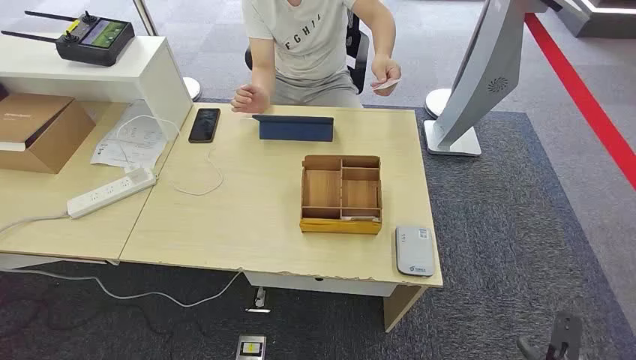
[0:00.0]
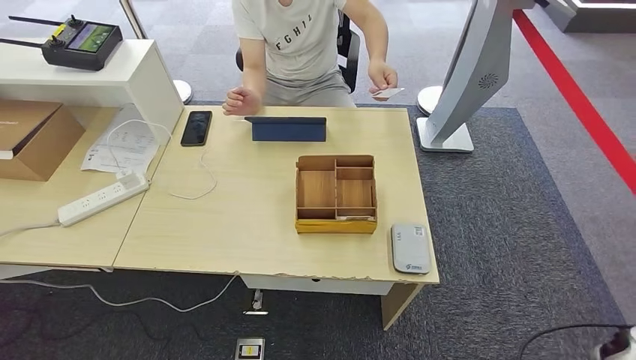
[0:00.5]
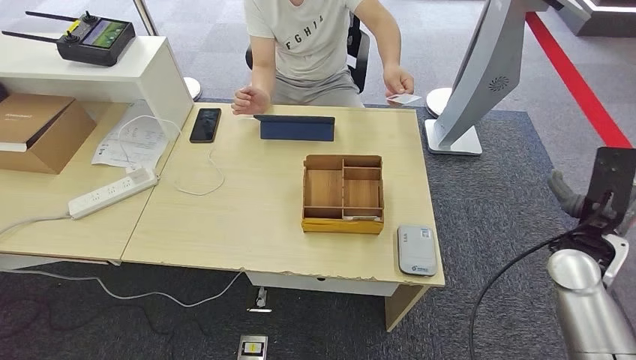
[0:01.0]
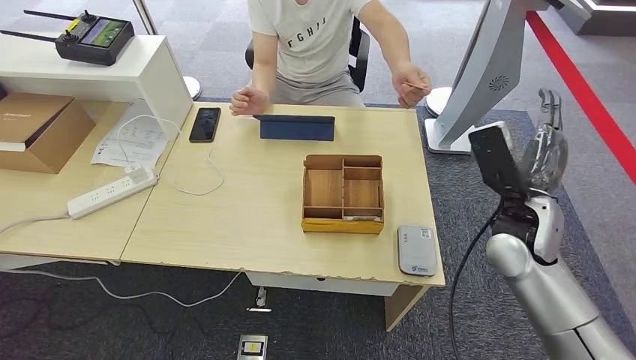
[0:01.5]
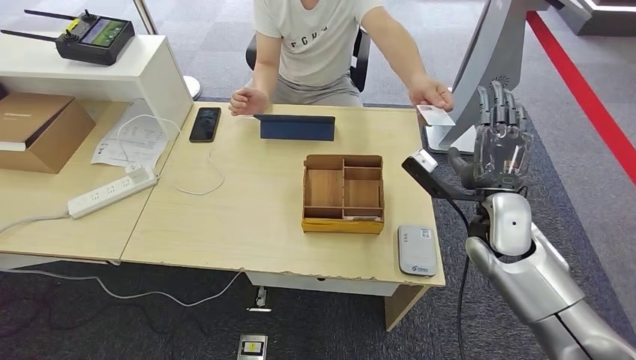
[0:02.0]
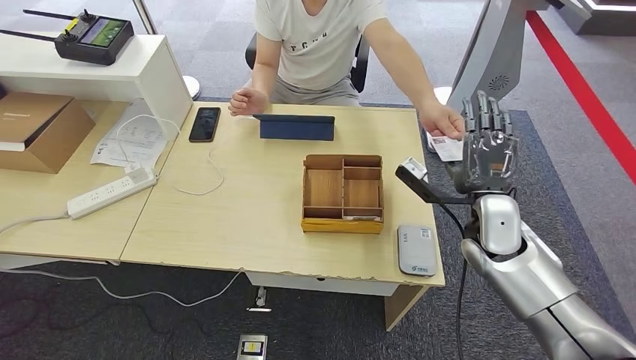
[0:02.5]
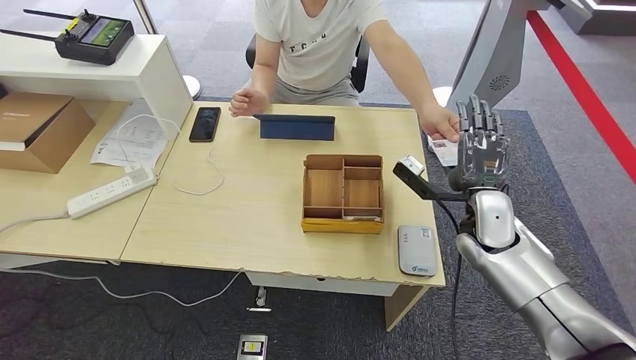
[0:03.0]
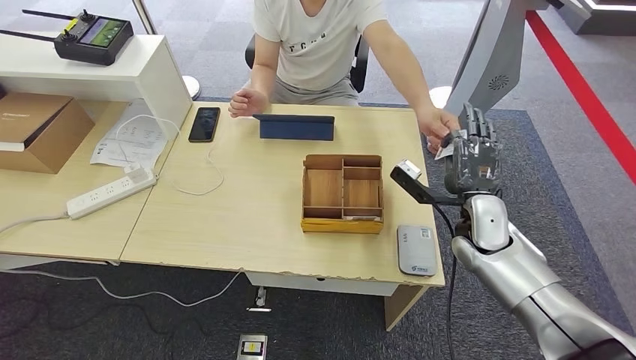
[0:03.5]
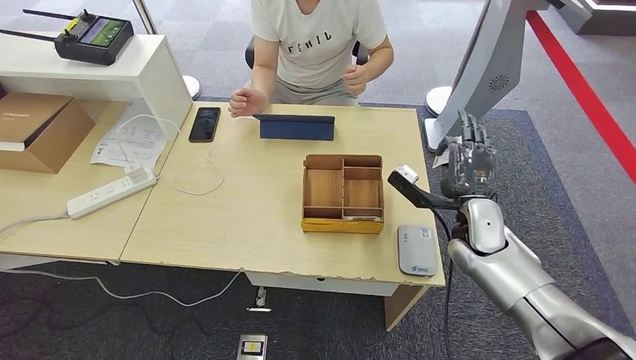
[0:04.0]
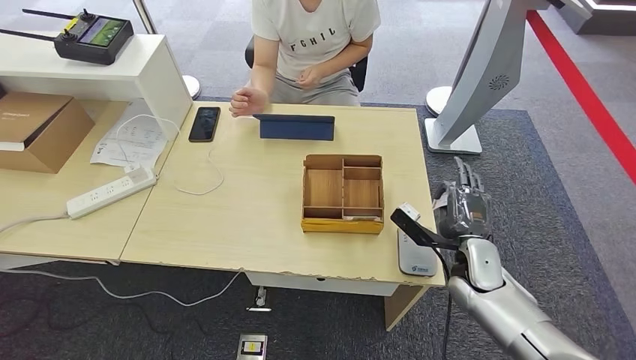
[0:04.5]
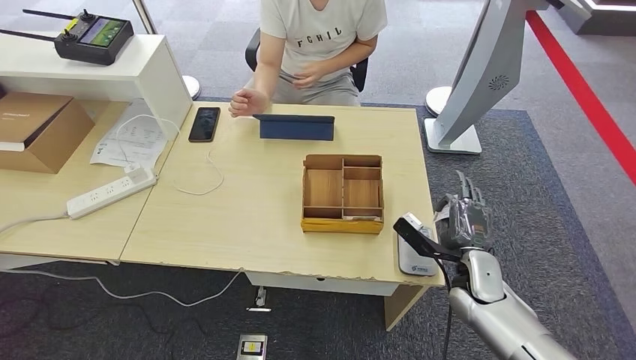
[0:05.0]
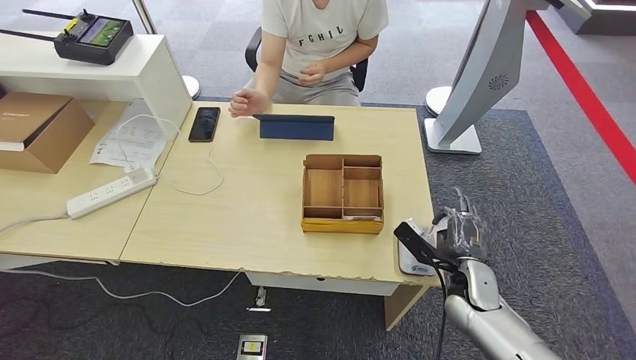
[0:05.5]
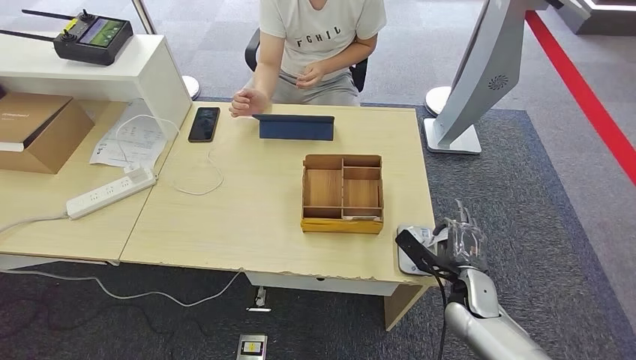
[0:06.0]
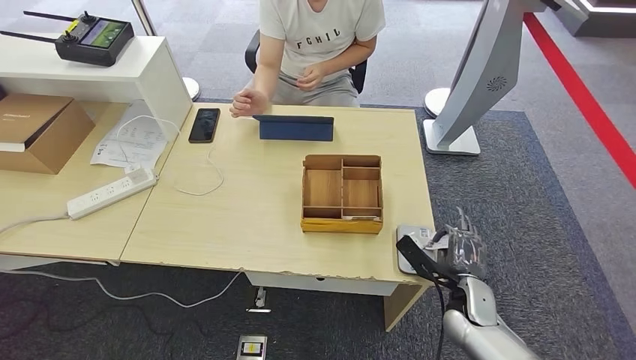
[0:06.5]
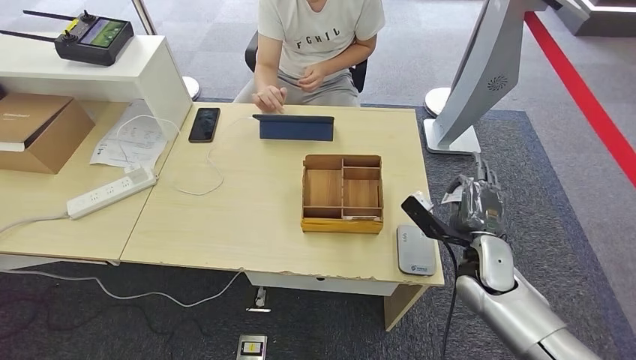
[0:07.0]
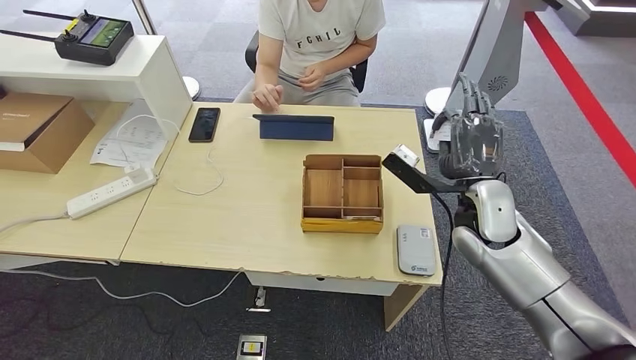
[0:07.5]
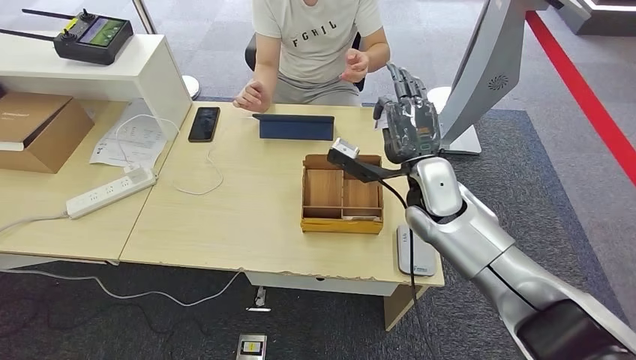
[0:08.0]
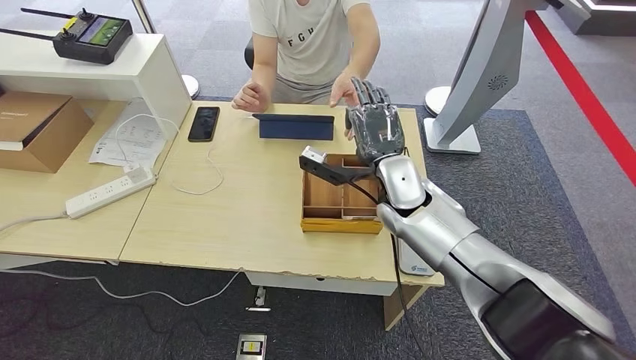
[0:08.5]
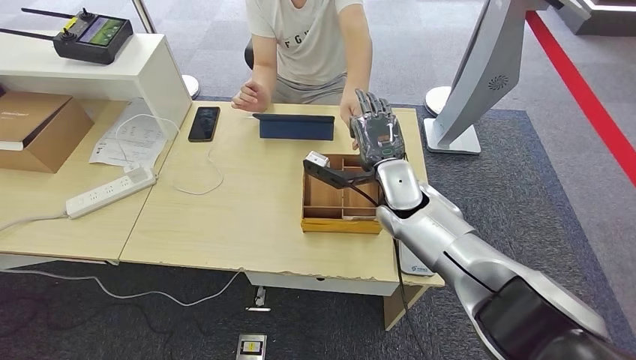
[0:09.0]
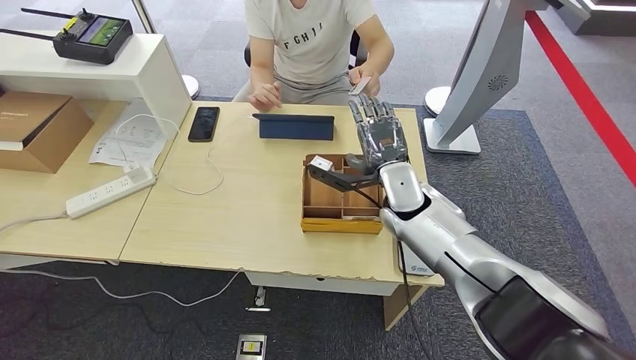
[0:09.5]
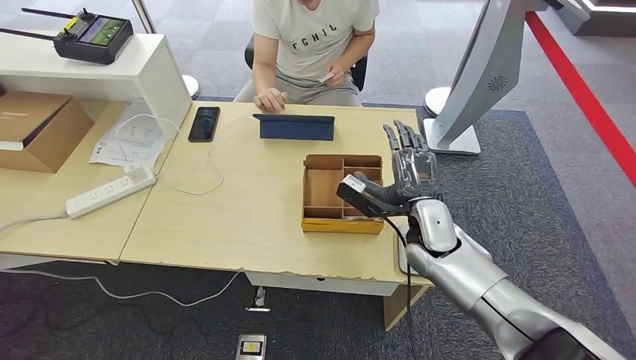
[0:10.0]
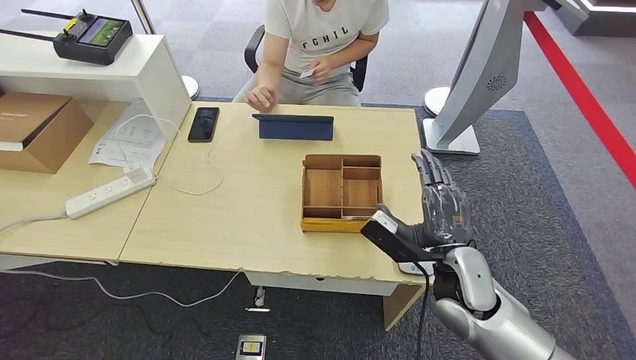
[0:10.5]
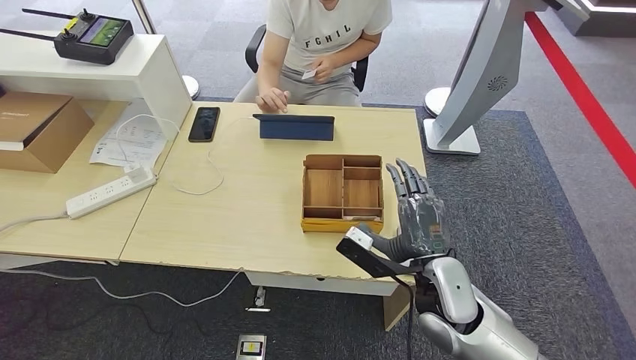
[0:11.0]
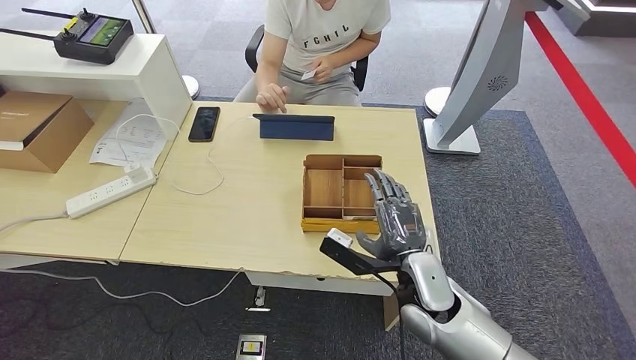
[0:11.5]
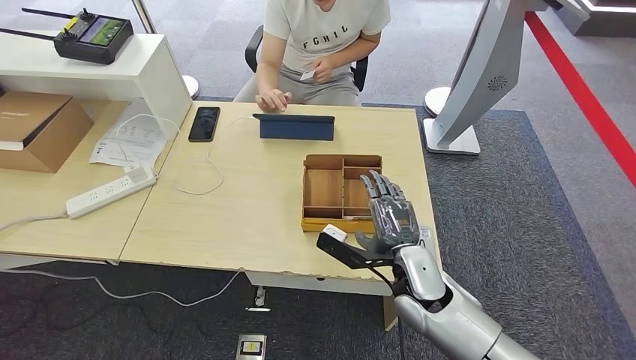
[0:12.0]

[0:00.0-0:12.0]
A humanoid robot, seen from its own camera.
Step, 0:00.0 to 0:04.0: Take the ID card from the person's hand.
Step, 0:05.0 to 0:06.5: Place the ID card on the card reader.
Step, 0:07.0 to 0:09.5: Hand the ID card to the person.
0:02.0 to 0:04.0: The right hand shifts approximately 5 cm downward.
0:04.0 to 0:06.0: The right hand moves downward and backward, roughly 15 cm.
0:06.0 to 0:08.0: The right hand goes some 25 cm upward, forward and to the left.
0:08.0 to 0:10.0: The right hand travels downward by approximately 10 cm.
0:10.0 to 0:12.0: The right hand is displaced backward by some 10 cm.

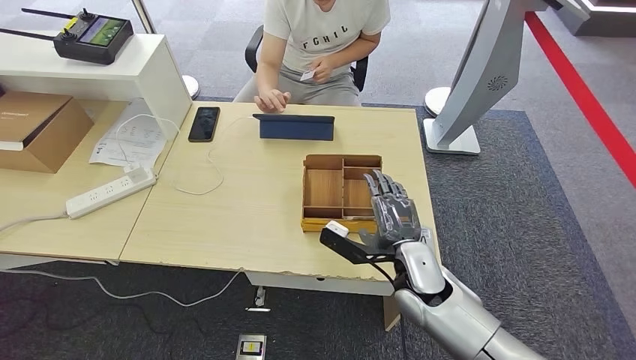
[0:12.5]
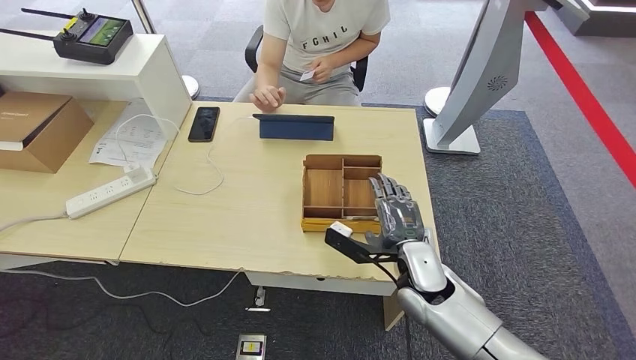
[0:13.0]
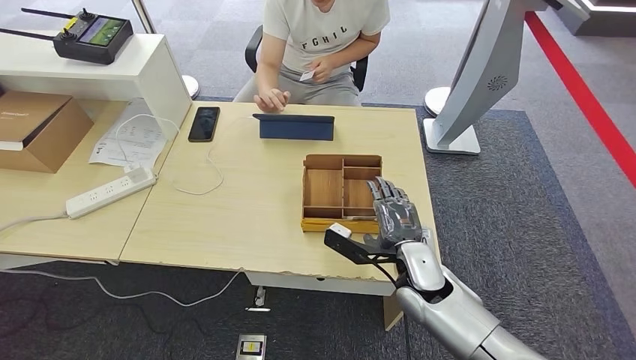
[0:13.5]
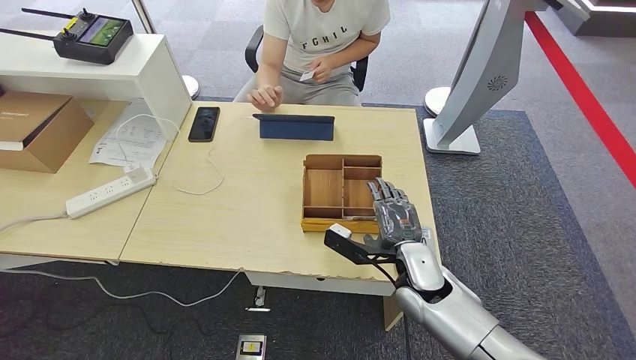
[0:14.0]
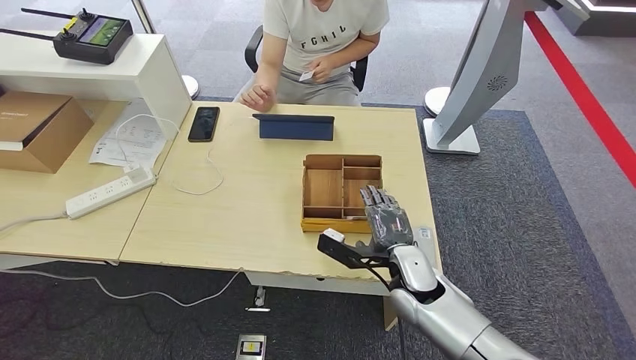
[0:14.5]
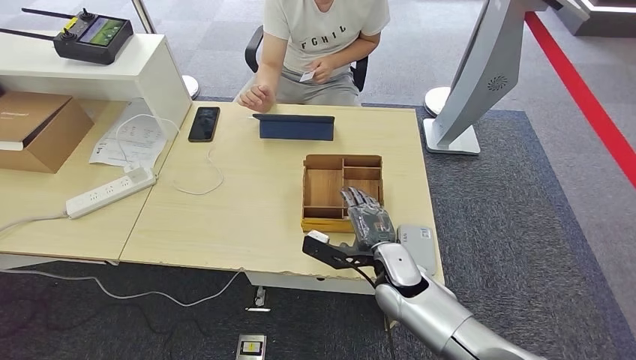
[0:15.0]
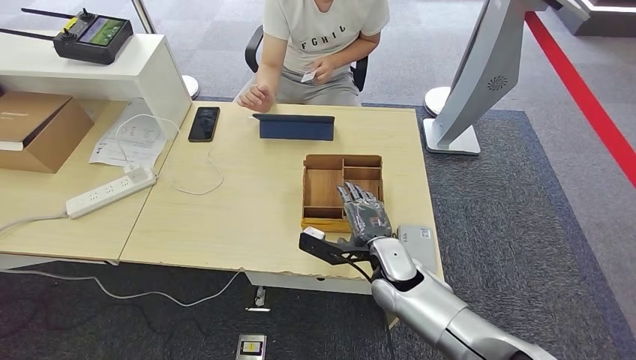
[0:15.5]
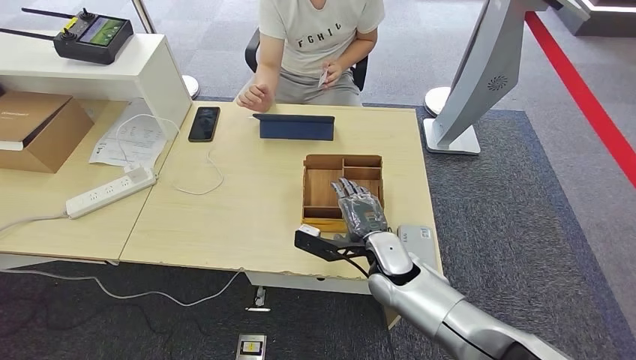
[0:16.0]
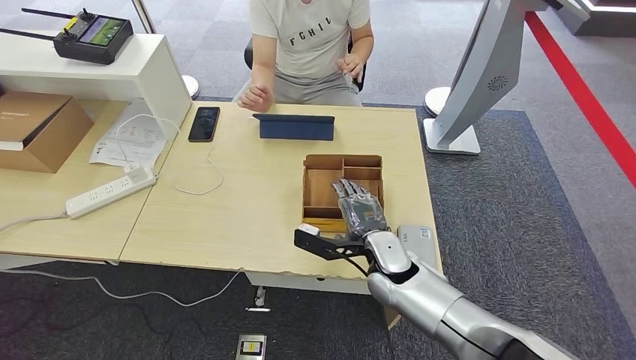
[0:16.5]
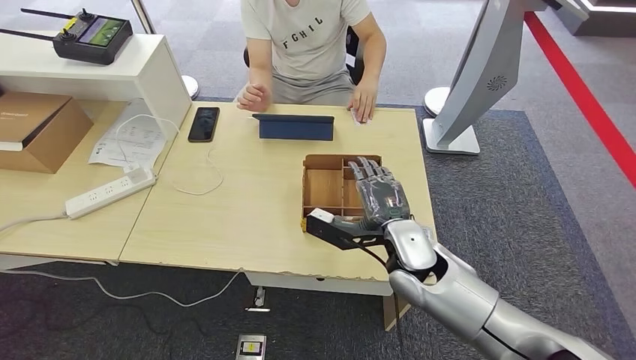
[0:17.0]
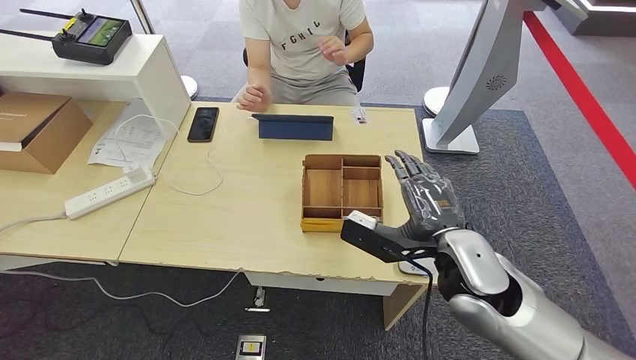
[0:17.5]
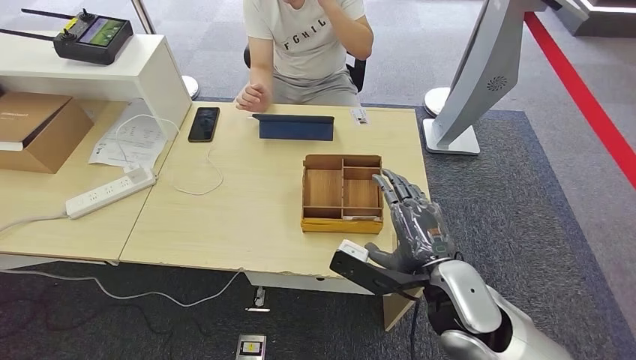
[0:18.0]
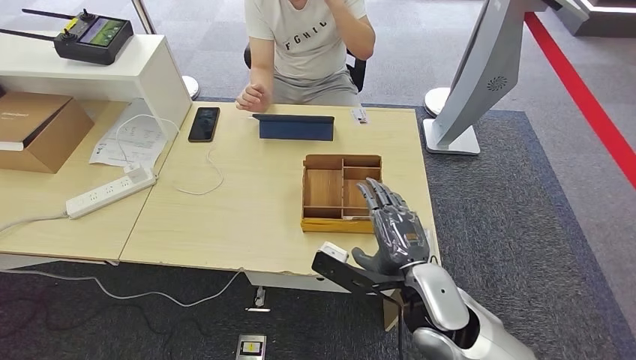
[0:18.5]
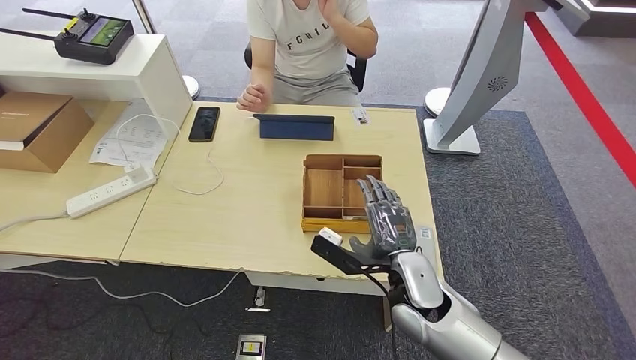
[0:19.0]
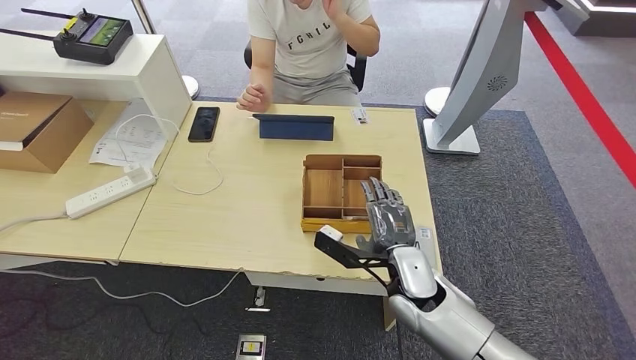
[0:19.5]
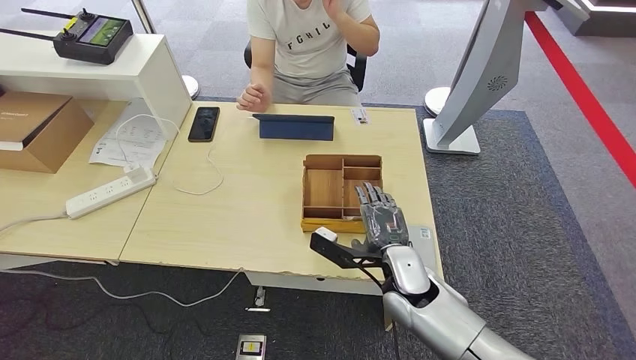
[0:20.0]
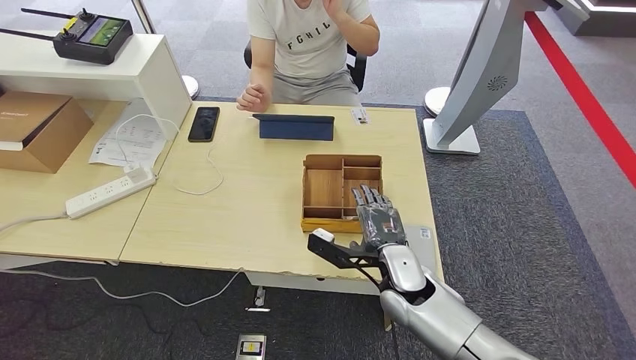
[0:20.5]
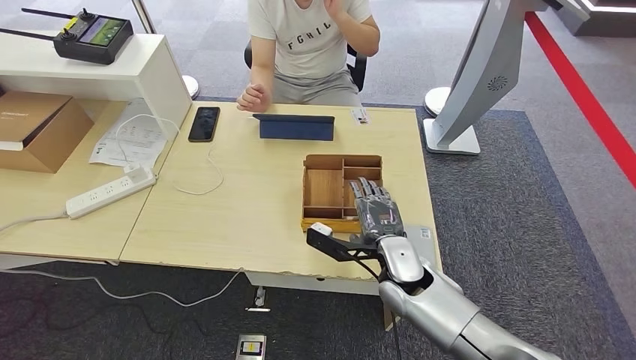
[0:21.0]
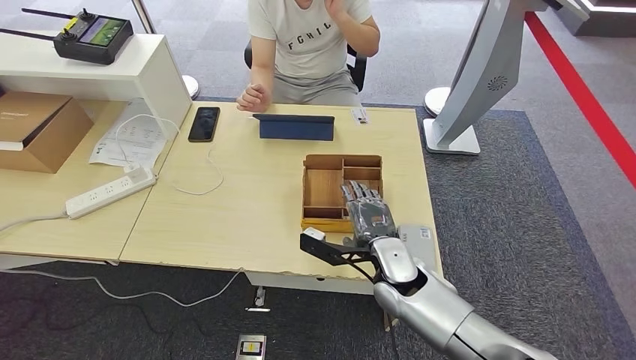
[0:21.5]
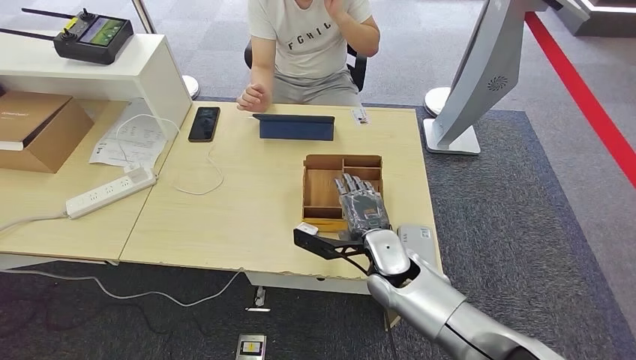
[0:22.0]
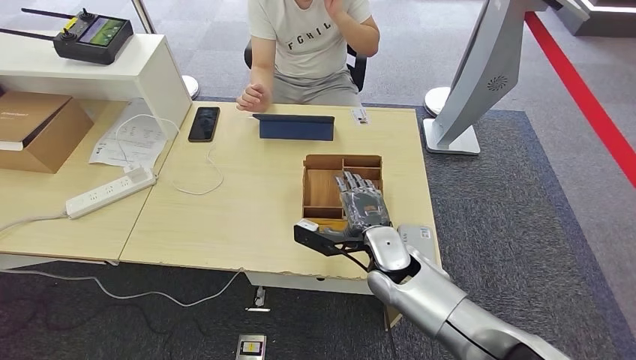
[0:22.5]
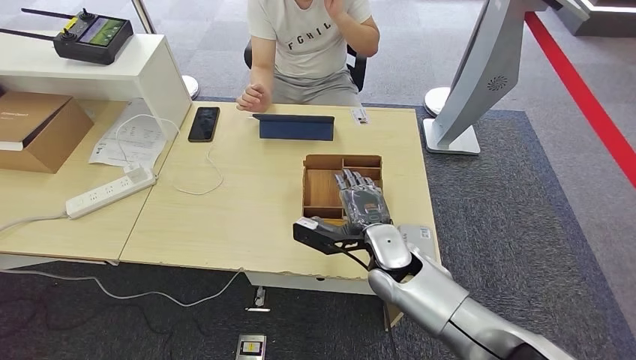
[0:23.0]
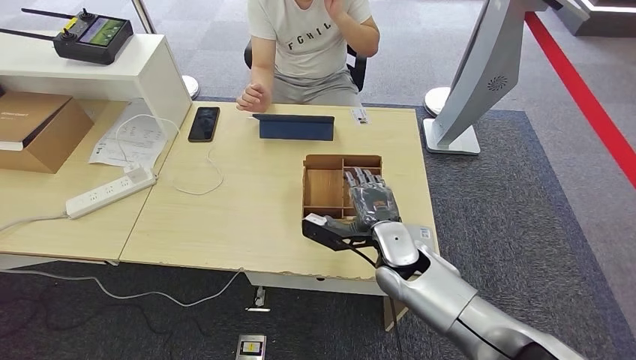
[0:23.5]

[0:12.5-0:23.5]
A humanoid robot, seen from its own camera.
0:12.5 to 0:16.0: The hands make only small movements.
0:16.0 to 0:18.0: The right hand shifts roughly 15 cm upward and backward.
0:18.0 to 0:20.0: The right hand heads downward and forward, covering some 10 cm.
0:20.0 to 0:23.5: There are only small adjustments of the hands.
